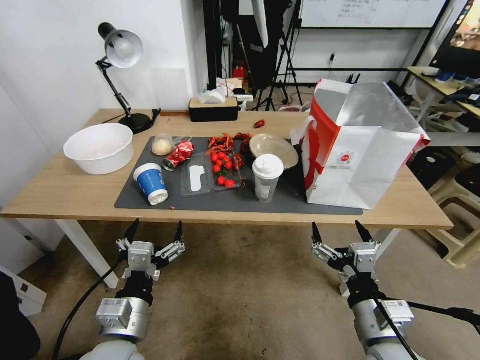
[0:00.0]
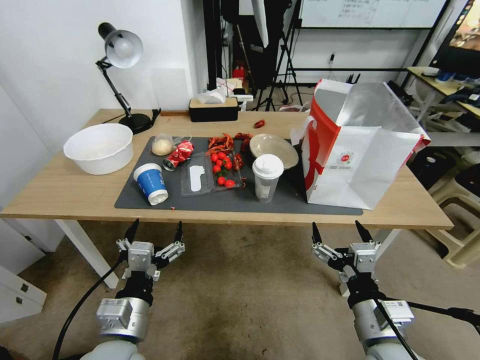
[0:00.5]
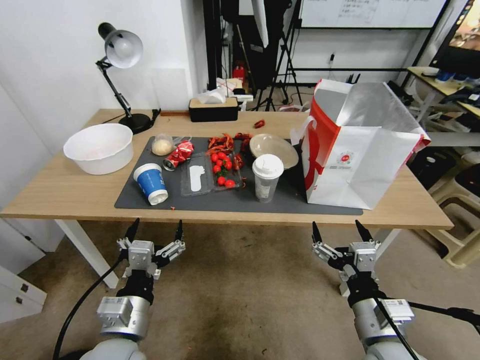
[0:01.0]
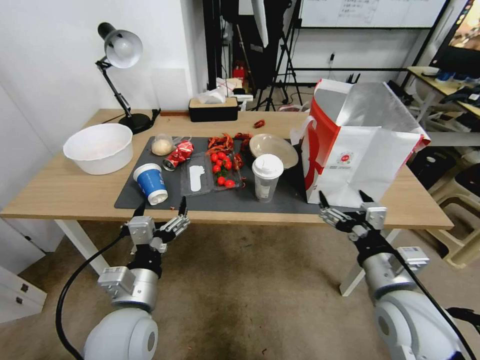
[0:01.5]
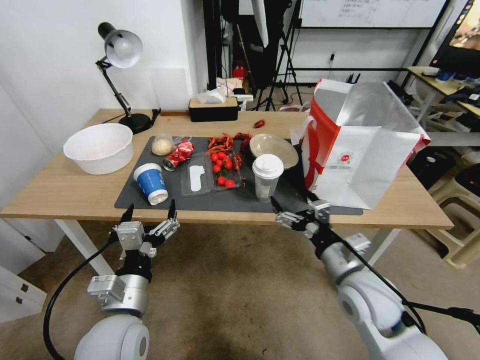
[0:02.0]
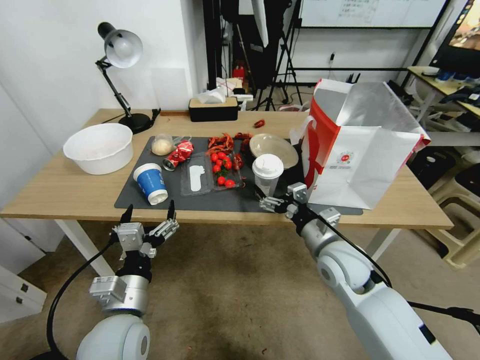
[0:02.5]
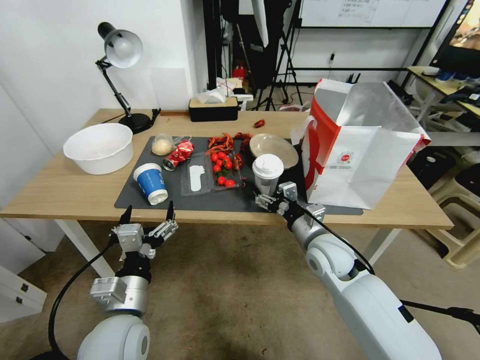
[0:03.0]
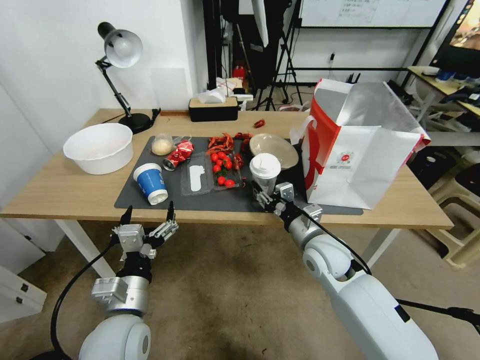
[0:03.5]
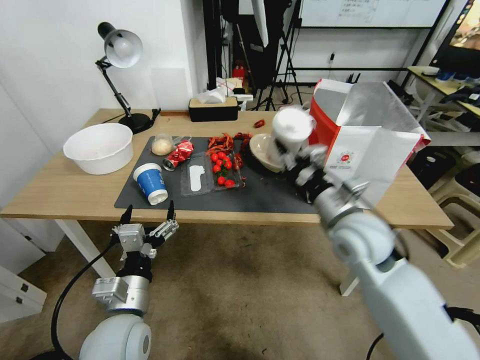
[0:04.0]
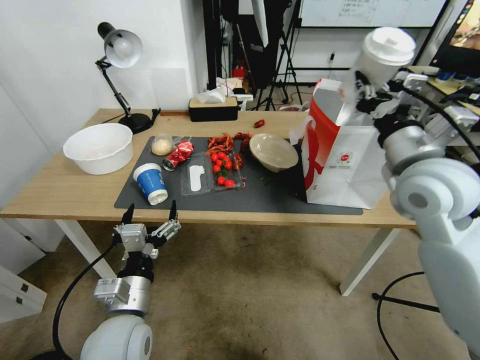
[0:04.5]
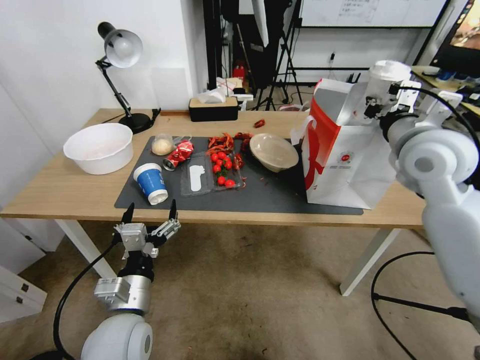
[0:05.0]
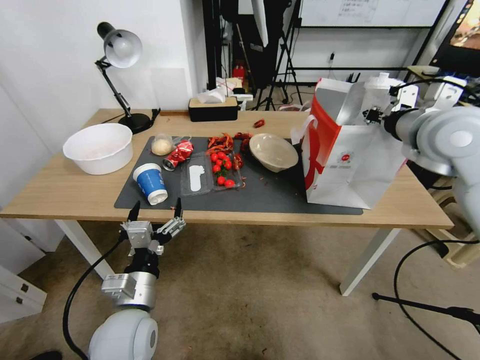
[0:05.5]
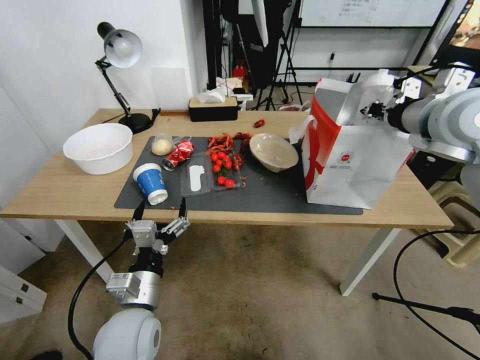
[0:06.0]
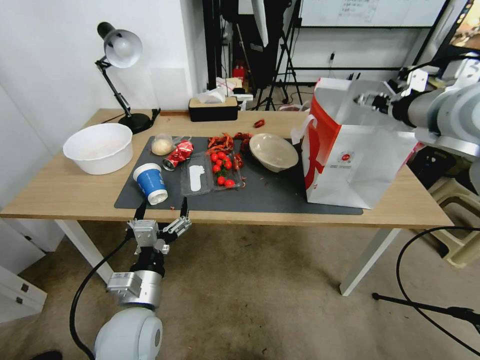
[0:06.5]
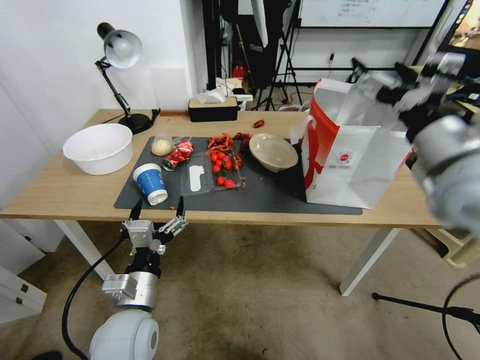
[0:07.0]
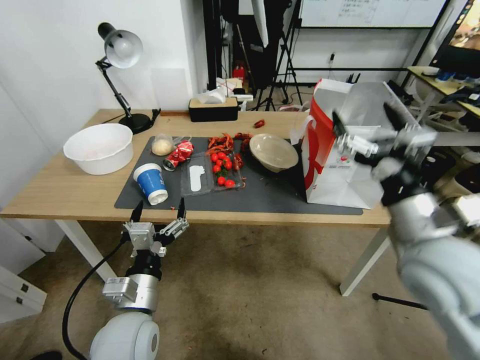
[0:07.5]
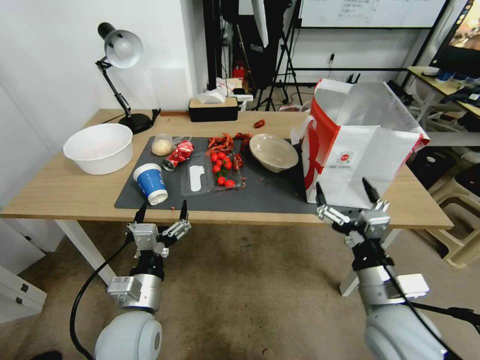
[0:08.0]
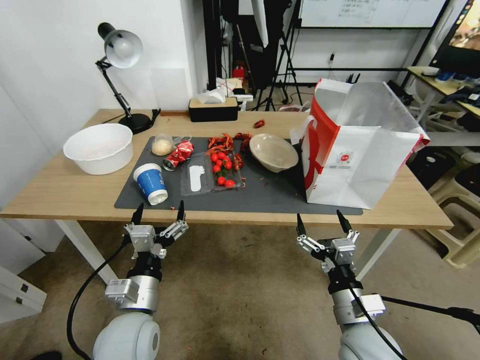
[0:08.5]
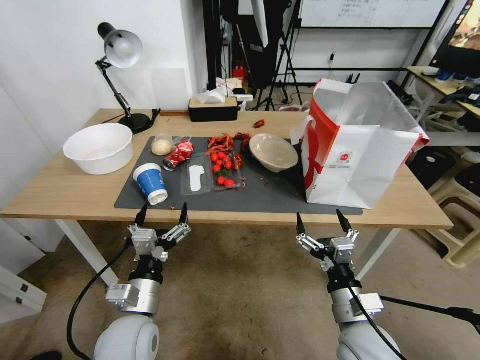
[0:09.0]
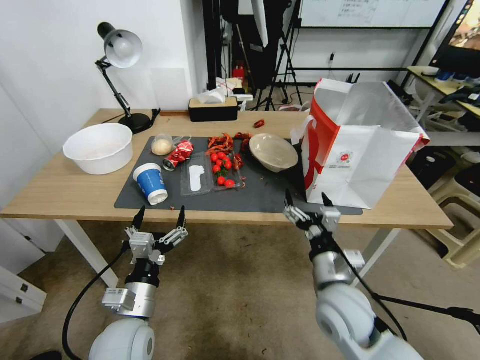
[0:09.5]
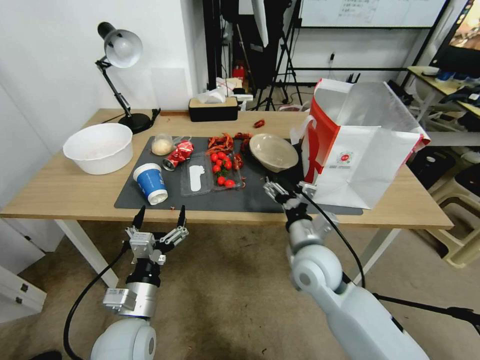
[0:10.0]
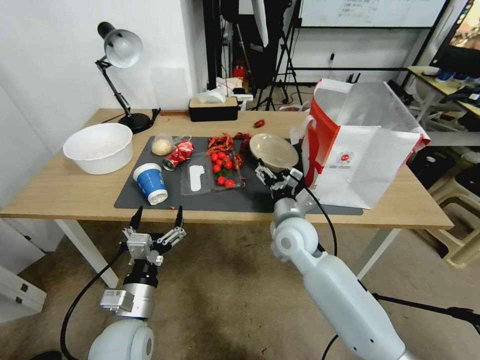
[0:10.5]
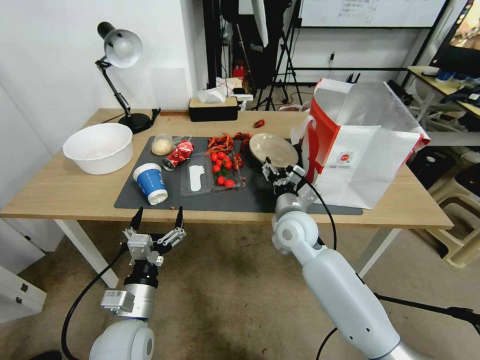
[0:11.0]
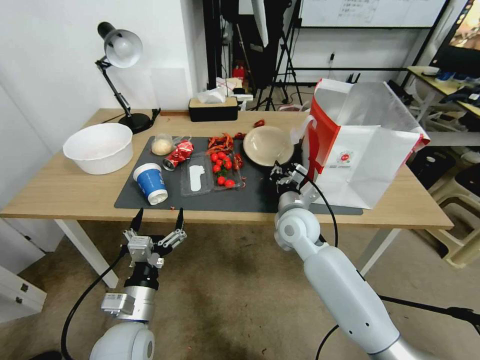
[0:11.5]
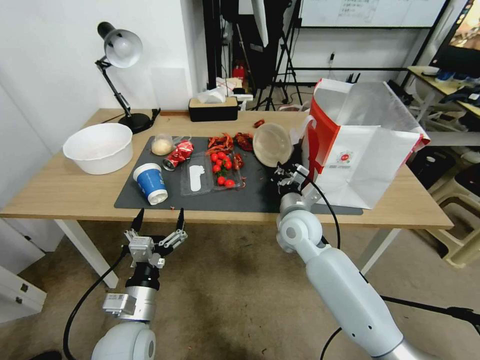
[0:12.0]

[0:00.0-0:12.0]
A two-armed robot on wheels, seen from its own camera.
0:02.0 to 0:04.0: The right gripper is displaced upward and forward by some 10 cm, and closes.
0:04.0 to 0:06.0: The right gripper goes some 25 cm upward and to the right.
0:06.0 to 0:08.0: The right gripper goes approximately 30 cm downward and backward, and opens its fingers.
0:08.0 to 0:10.0: The right gripper is displaced downward, to the left and forward by roughly 10 cm.
0:10.0 to 0:12.0: The right gripper heads forward, covering some 15 cm, and closes its fingers.

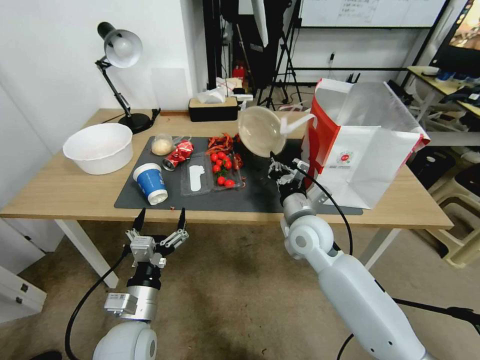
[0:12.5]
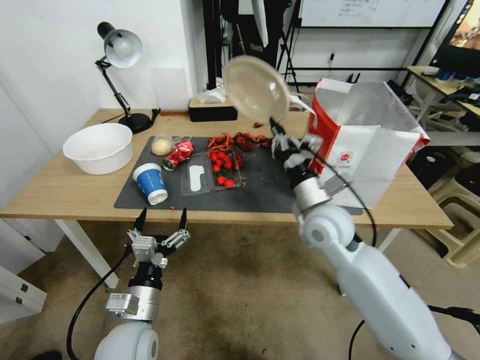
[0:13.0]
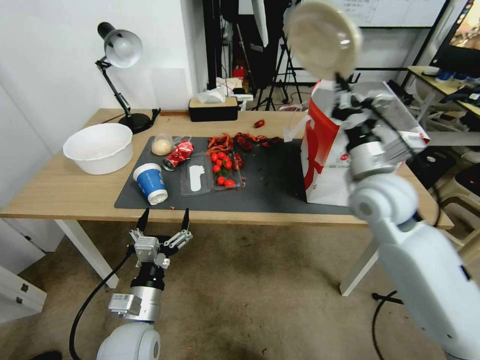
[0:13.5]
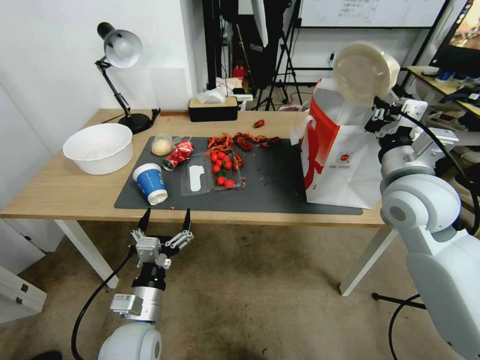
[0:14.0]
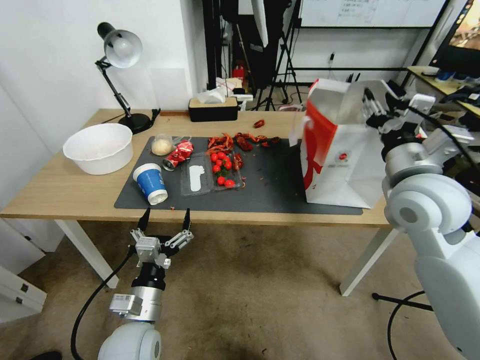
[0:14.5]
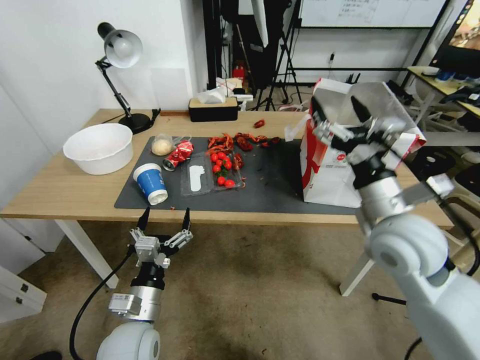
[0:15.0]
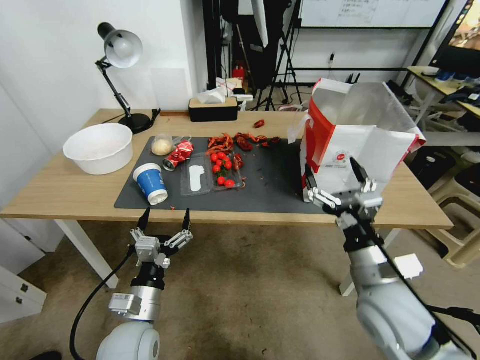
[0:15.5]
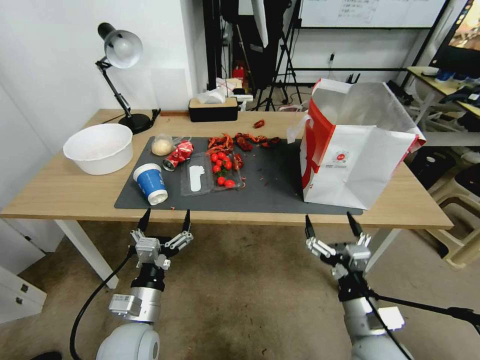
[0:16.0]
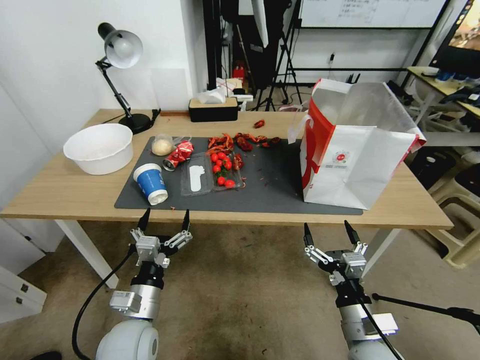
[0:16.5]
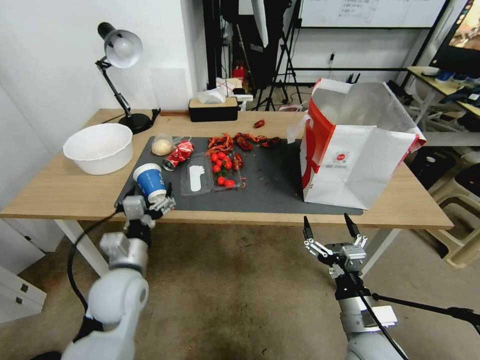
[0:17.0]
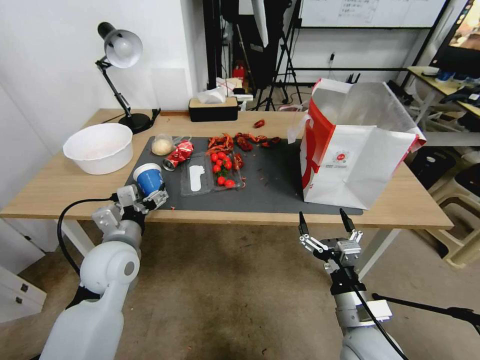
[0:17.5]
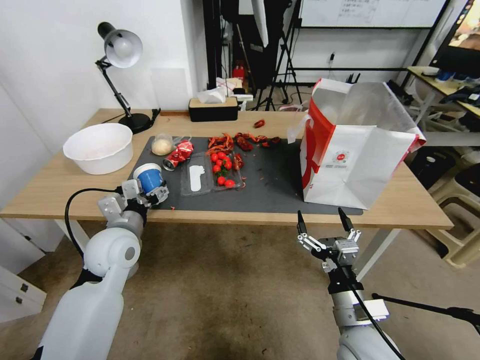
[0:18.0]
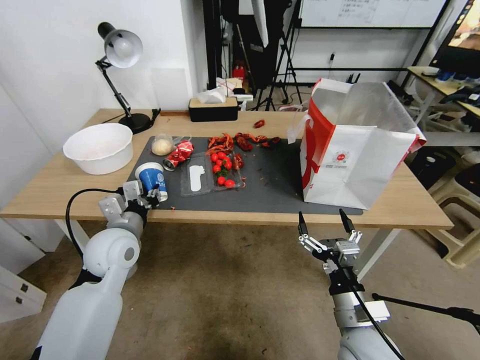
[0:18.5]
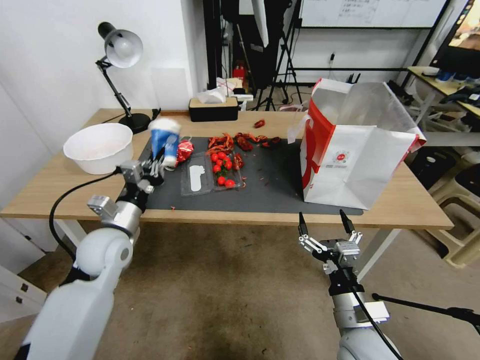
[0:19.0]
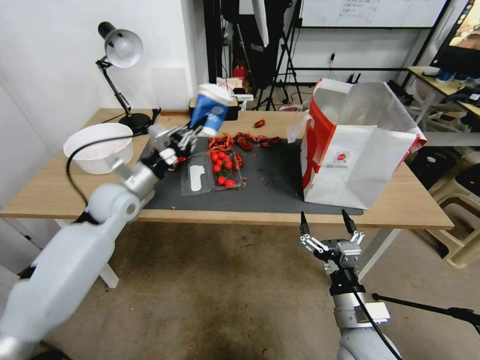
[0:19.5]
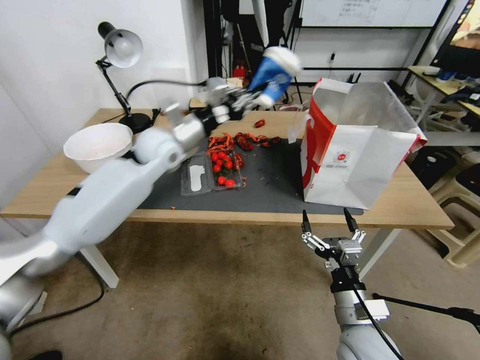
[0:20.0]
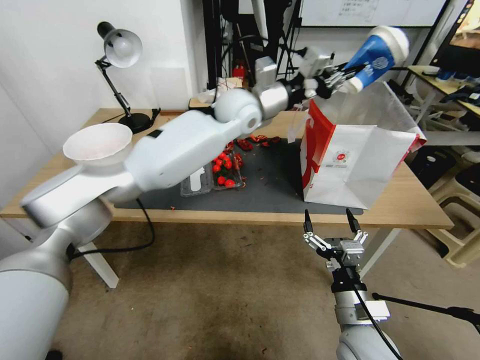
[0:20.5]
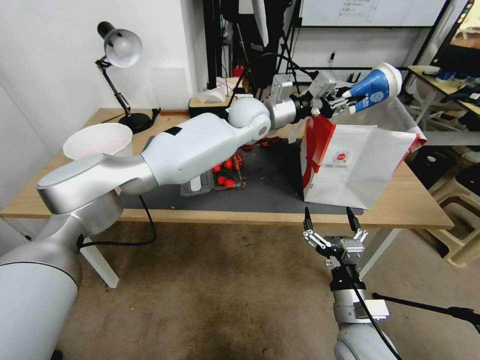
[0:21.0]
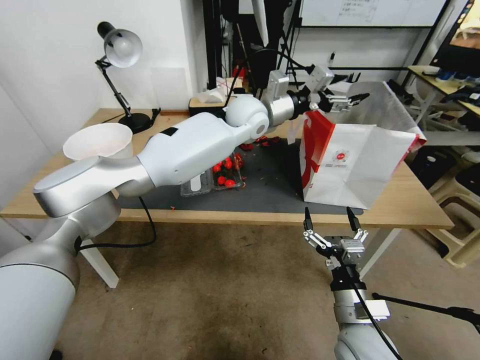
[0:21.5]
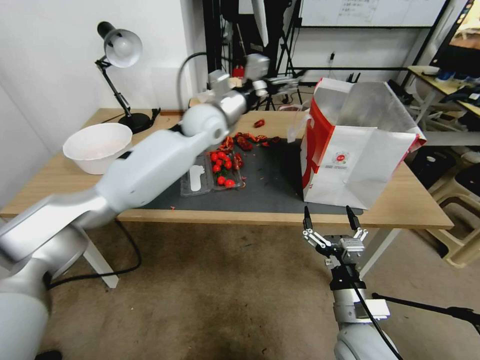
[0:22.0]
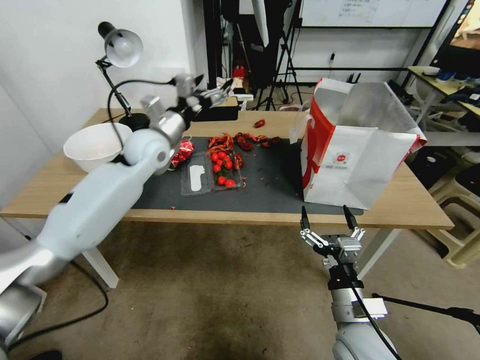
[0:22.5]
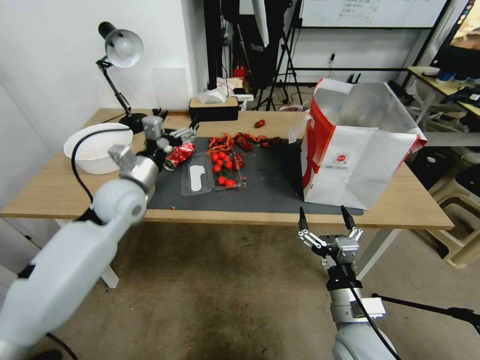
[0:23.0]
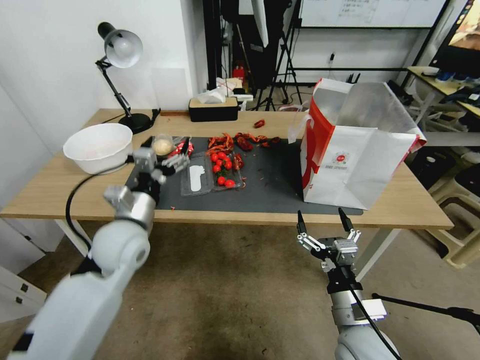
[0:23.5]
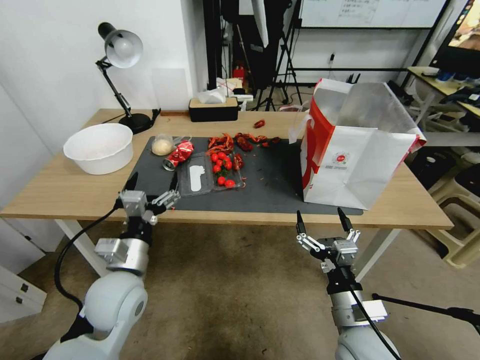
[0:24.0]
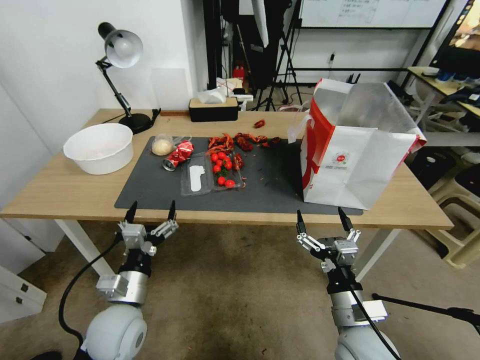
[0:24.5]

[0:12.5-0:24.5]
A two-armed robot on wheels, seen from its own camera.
0:12.5 to 0:14.5: The right gripper travels upward and to the right by roughly 25 cm, and opens its fingers.
0:14.5 to 0:16.5: The right gripper heads downward and backward, covering some 30 cm, and opens.
0:16.5 to 0:18.5: The left gripper goes about 15 cm forward and upward, and closes up.
0:18.5 to 0:20.5: The left gripper shifts some 40 cm to the right, forward and upward.
0:20.5 to 0:22.5: The left gripper shifts some 25 cm to the left and downward, and opens.
0:22.5 to 0:24.5: The left gripper moves backward and downward, about 35 cm.

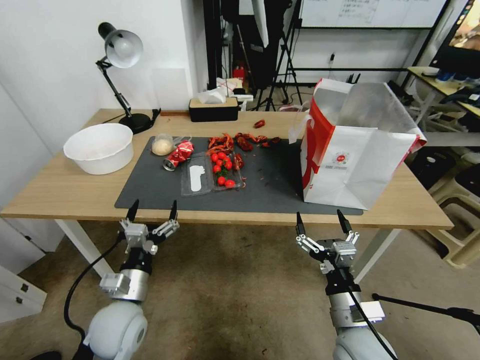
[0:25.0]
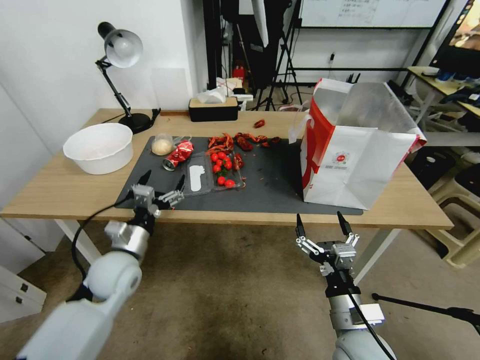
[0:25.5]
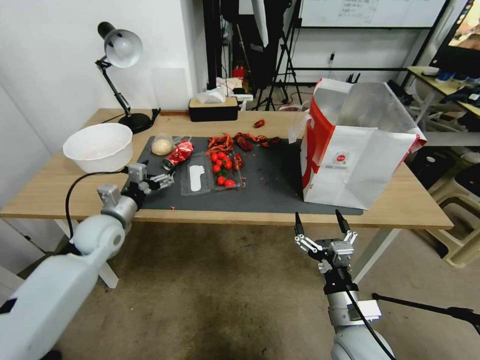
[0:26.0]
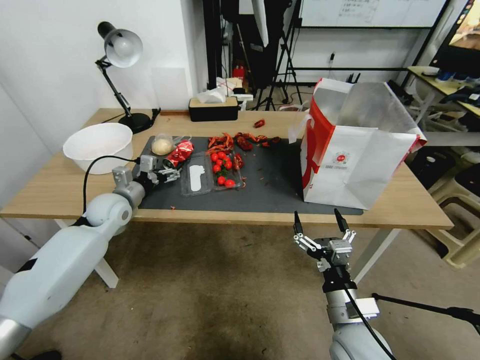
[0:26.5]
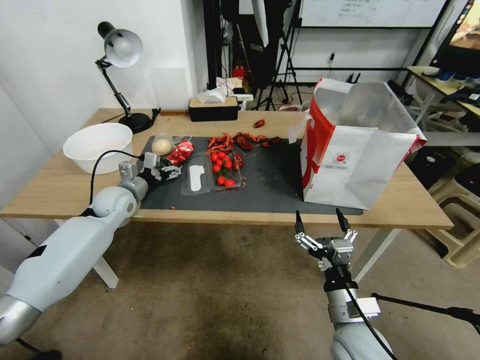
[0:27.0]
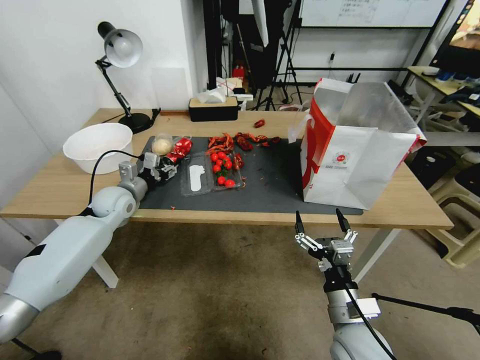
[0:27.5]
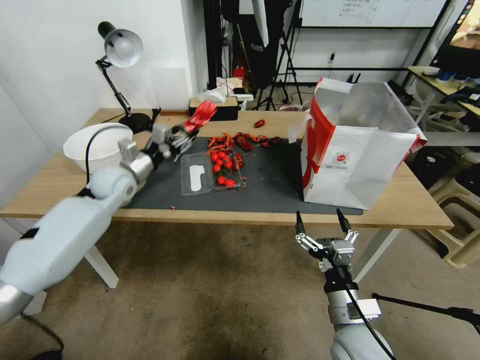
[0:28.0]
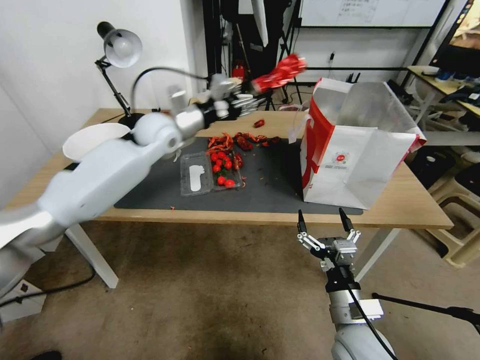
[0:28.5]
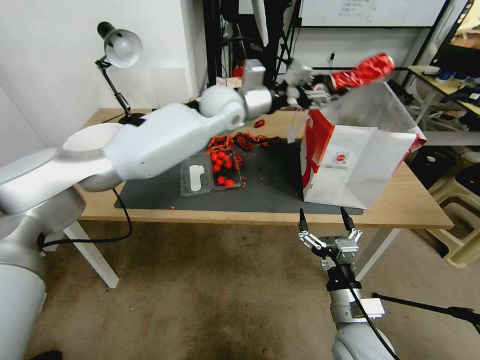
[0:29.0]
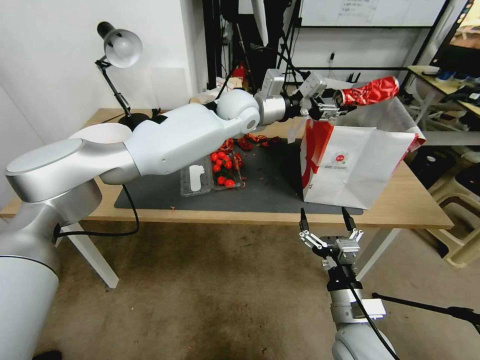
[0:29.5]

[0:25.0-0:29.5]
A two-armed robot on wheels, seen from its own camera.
0:25.0 to 0:27.0: The left gripper moves forward, approximately 25 cm.
0:27.0 to 0:29.5: The left gripper shifts about 40 cm to the right and upward.
